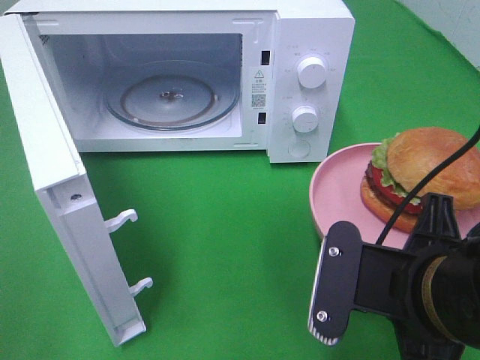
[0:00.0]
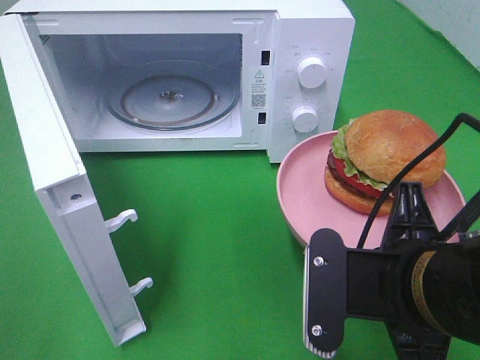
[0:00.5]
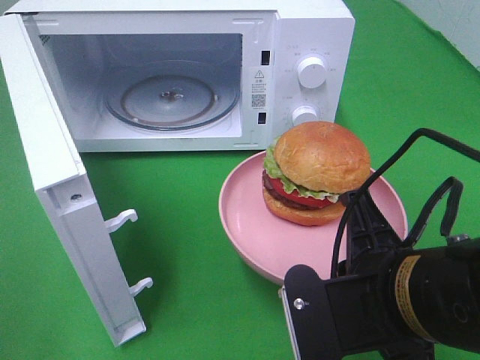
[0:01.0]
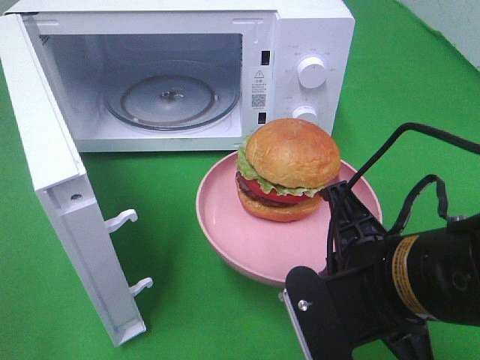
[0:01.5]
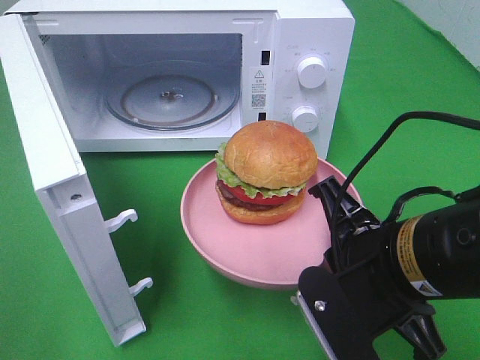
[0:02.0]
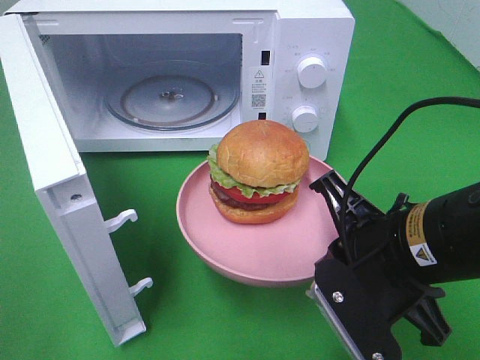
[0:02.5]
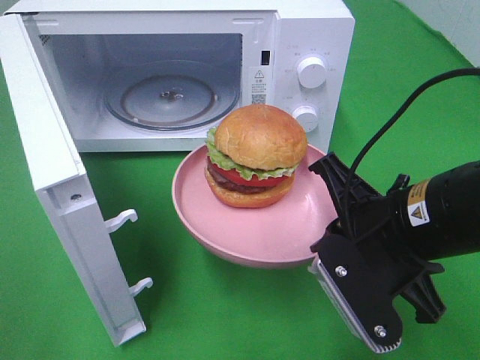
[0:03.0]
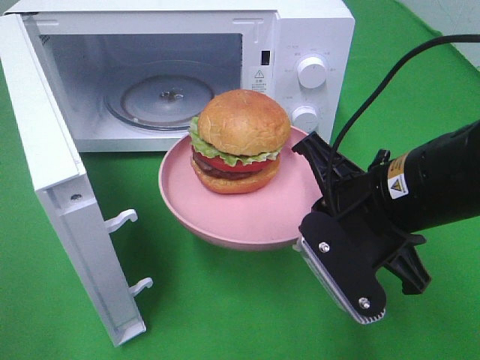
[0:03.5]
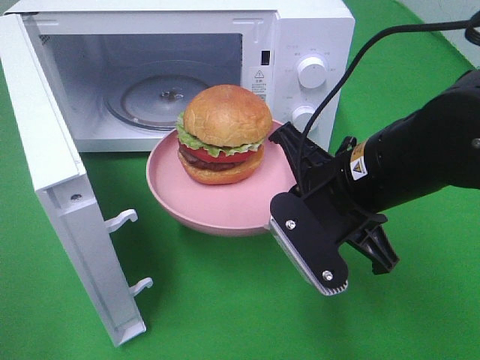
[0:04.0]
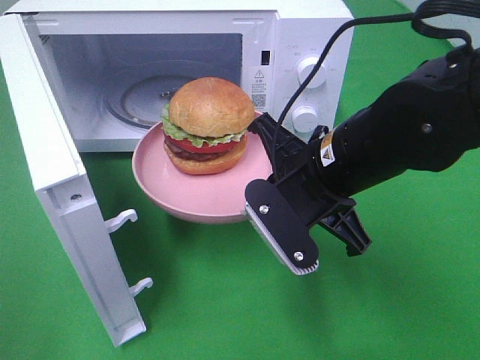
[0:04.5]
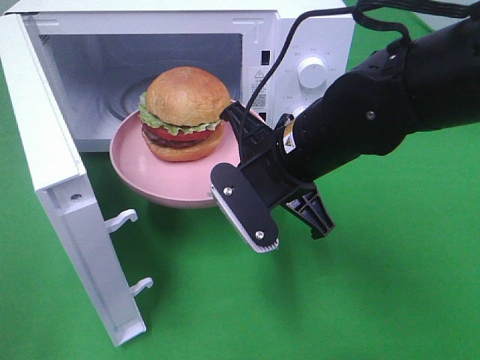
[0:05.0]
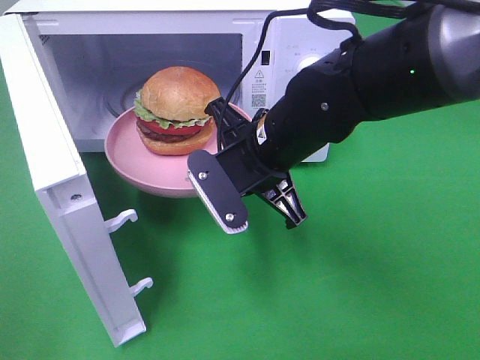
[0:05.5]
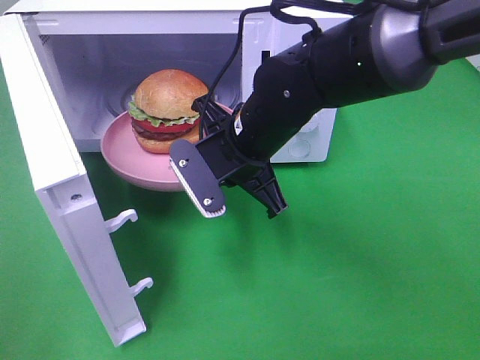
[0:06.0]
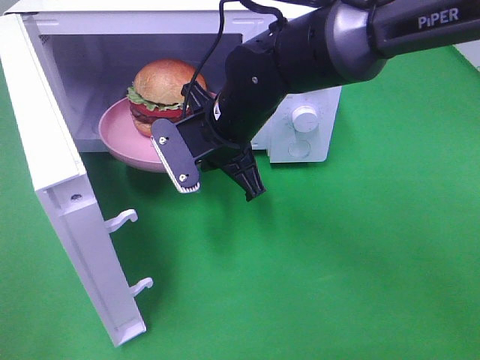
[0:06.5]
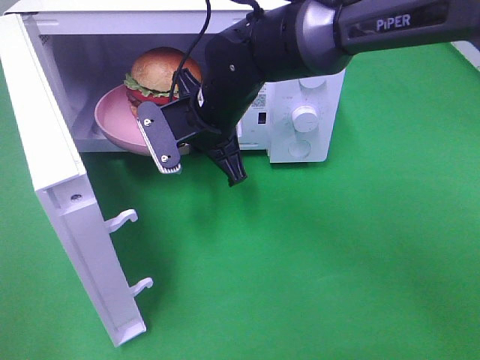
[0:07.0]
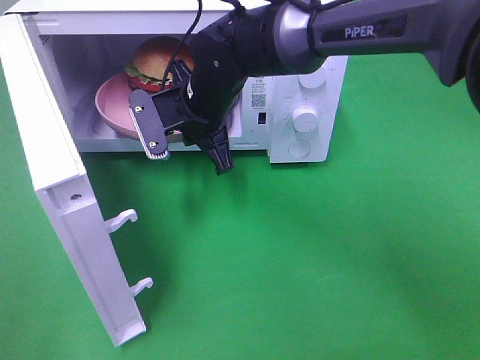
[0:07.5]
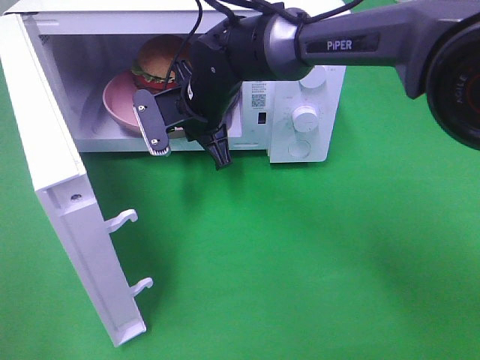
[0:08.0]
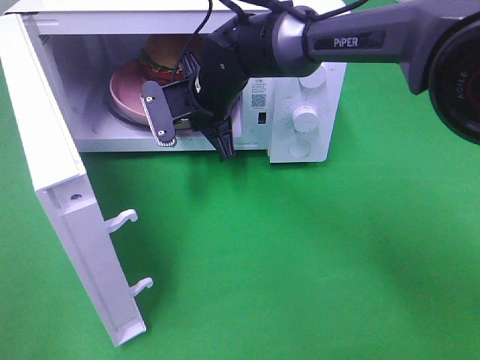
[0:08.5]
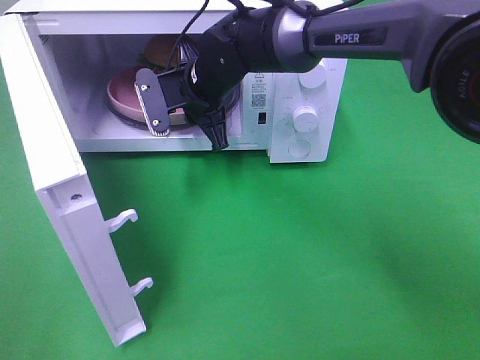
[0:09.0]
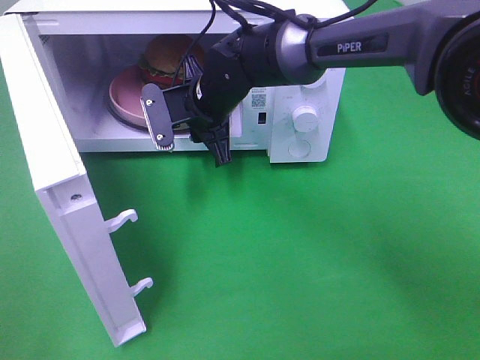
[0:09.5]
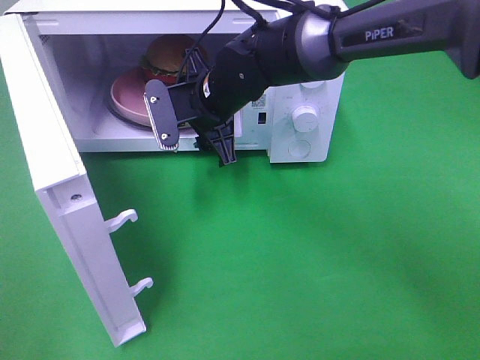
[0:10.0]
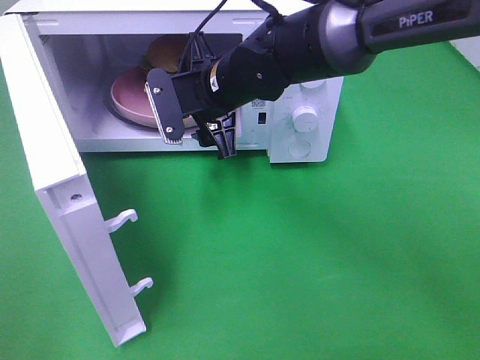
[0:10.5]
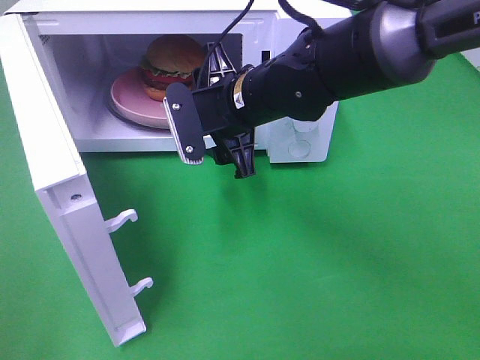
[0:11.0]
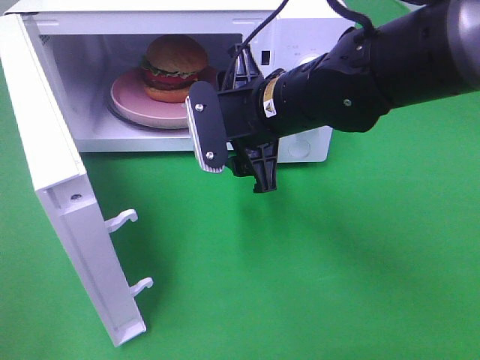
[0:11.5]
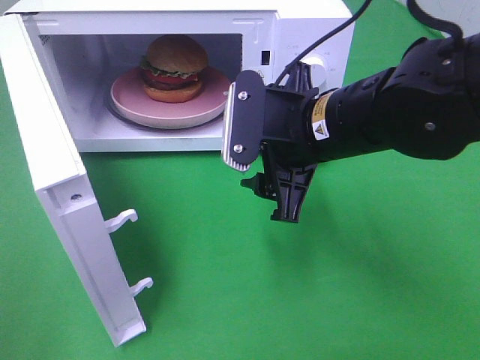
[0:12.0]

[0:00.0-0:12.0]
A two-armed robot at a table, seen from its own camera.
Task of the whole recording: Heat the burger.
Step, 0:00.0 to 0:10.0: Right hand: place the plate in the microwave.
0:02.0 to 0:04.0: The right gripper is displaced forward by roughly 5 cm.
0:04.0 to 0:06.0: The right gripper heads forward and to the left, covering roughly 15 cm.
0:06.0 to 0:08.0: The right gripper shifts approximately 10 cm forward and to the left.
0:08.0 to 0:10.0: The right gripper opens.
0:10.0 to 0:12.0: The right gripper heads backward and to the right, covering some 15 cm.

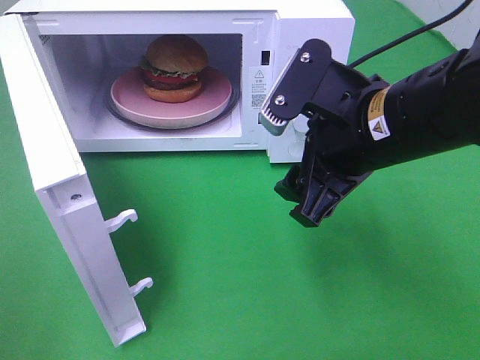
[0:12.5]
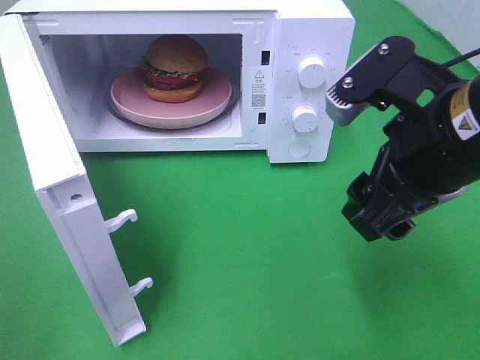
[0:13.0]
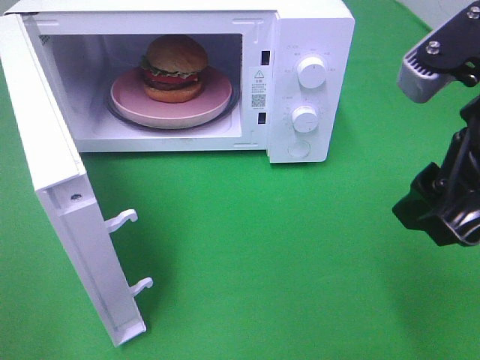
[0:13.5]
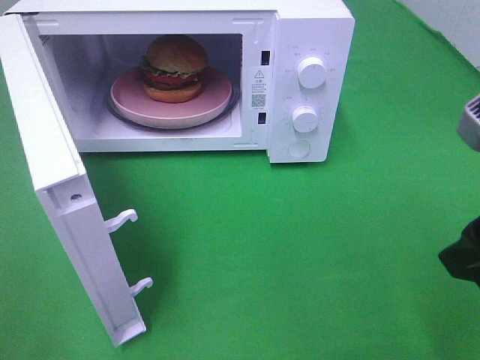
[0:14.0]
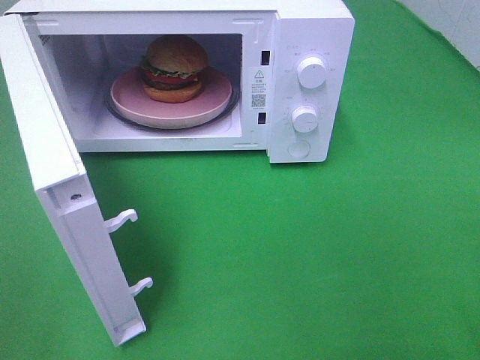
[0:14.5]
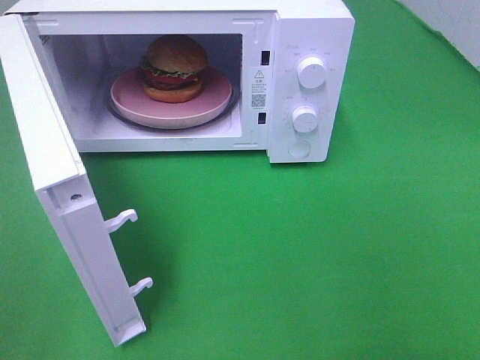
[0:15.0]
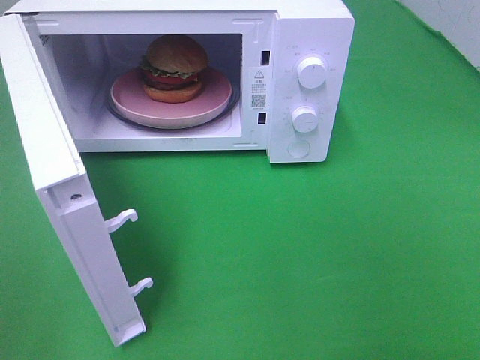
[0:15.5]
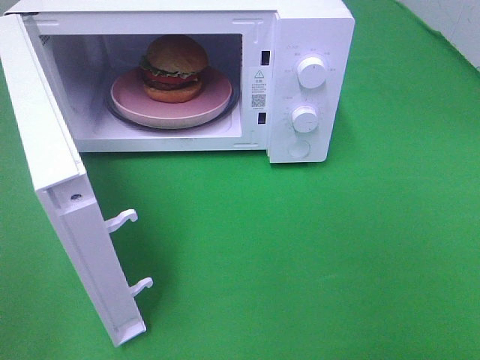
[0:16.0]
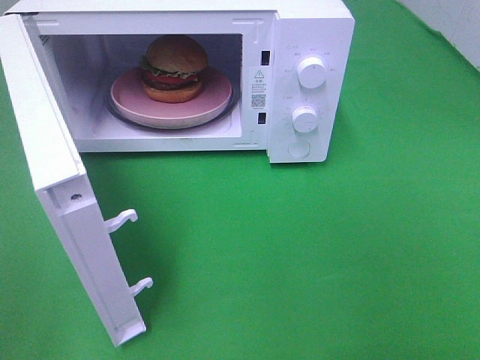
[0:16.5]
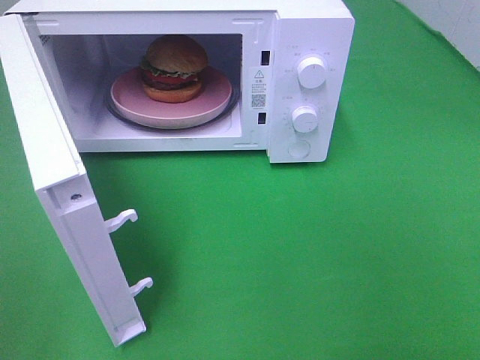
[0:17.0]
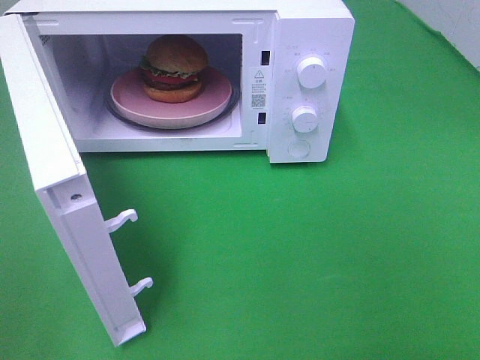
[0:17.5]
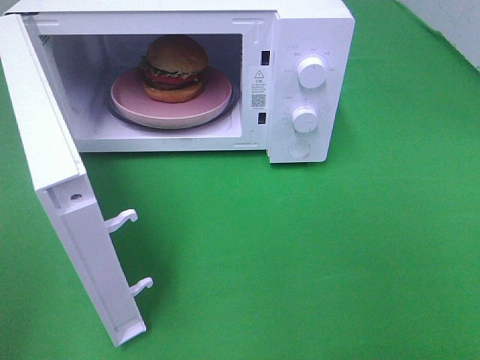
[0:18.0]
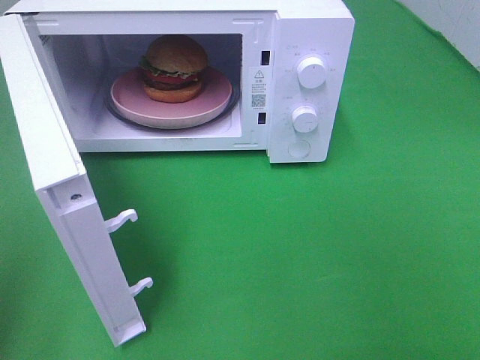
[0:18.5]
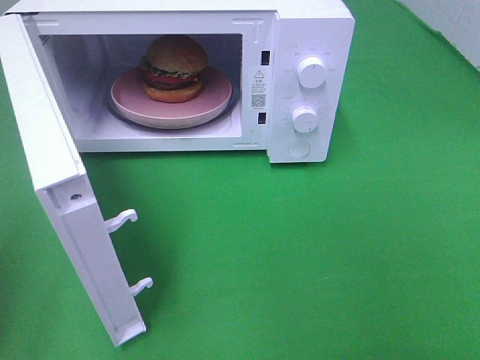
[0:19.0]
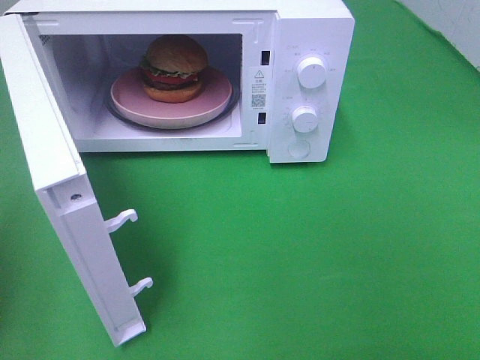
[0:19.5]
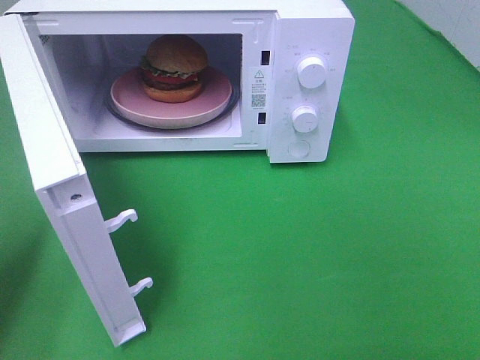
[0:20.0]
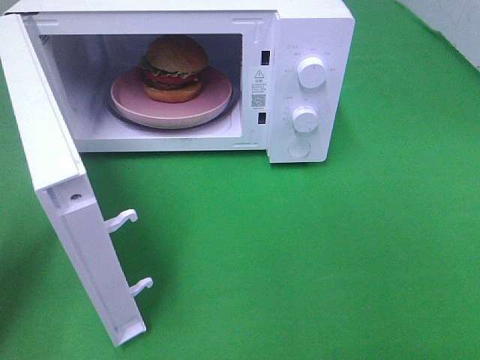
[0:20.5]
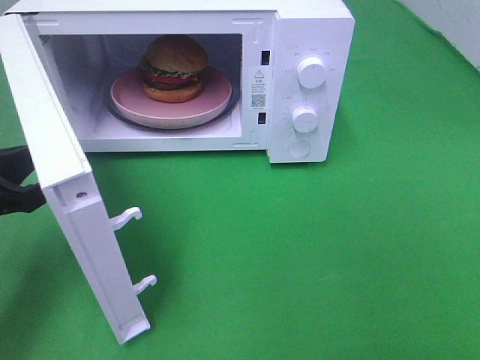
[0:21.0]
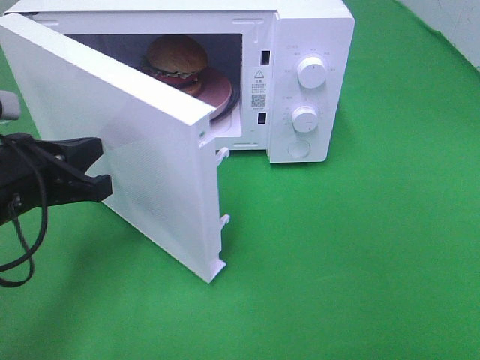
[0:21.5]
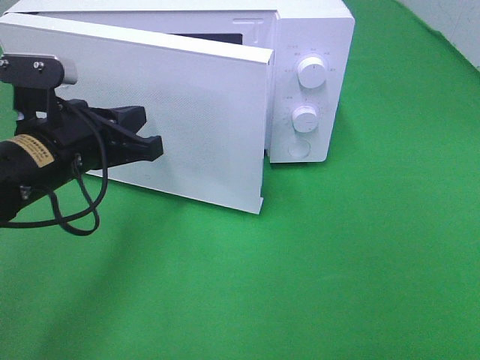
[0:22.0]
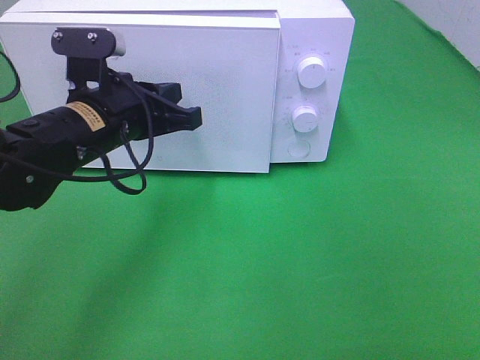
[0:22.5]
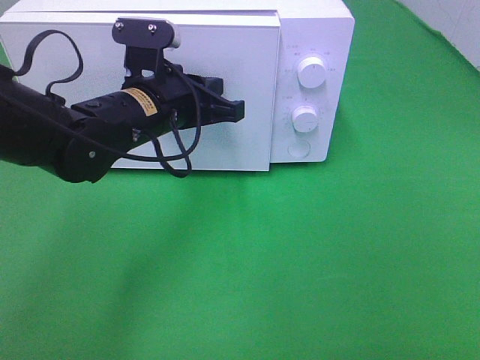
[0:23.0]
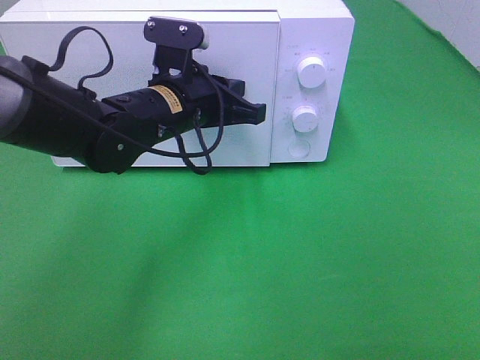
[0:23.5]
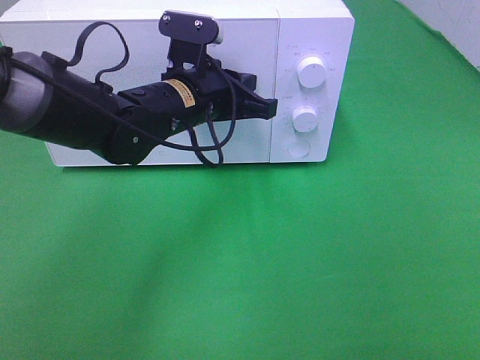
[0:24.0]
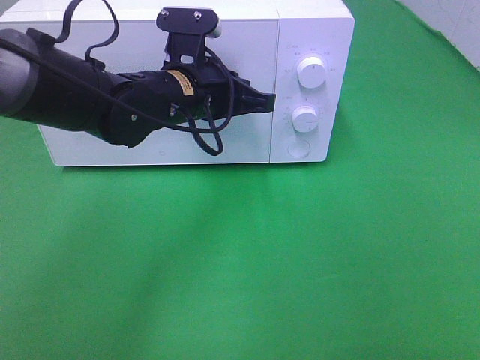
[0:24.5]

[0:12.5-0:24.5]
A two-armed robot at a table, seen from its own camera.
Task of the whole recording: Heat the burger.
0:12.5 to 0:14.5: The right gripper shifts about 20 cm to the right and backward.
0:18.5 to 0:20.5: The left gripper travels forward and downward by some 15 cm.
0:20.5 to 0:22.5: The left gripper shifts approximately 20 cm to the right and forward.
0:22.5 to 0:24.5: The left gripper shifts roughly 10 cm to the right.

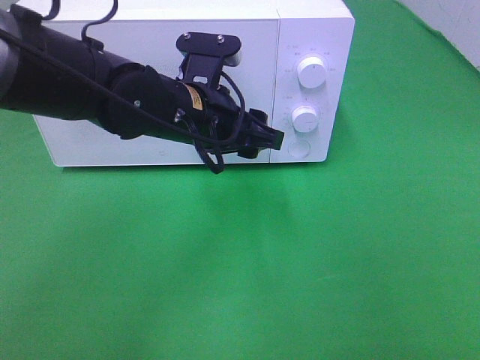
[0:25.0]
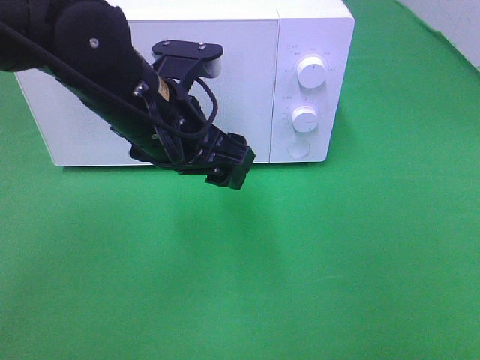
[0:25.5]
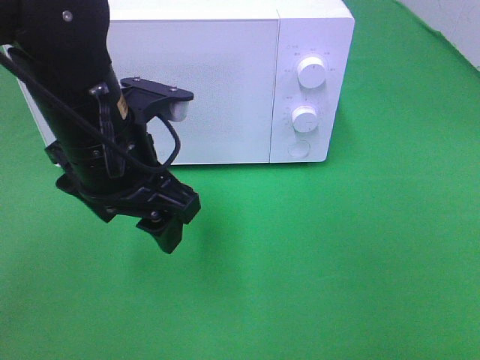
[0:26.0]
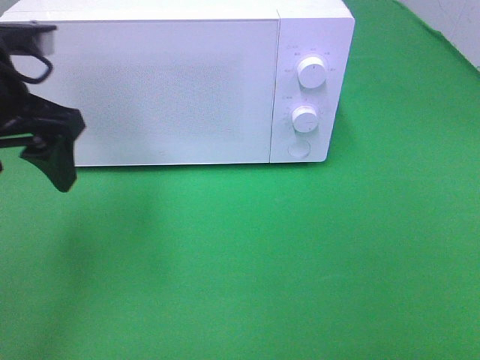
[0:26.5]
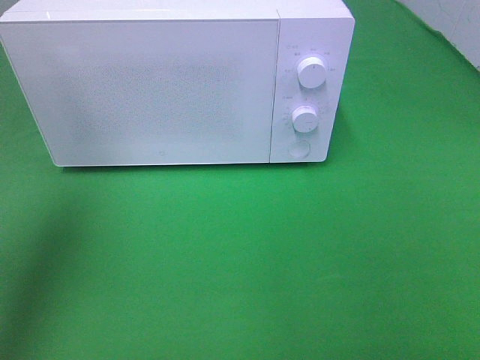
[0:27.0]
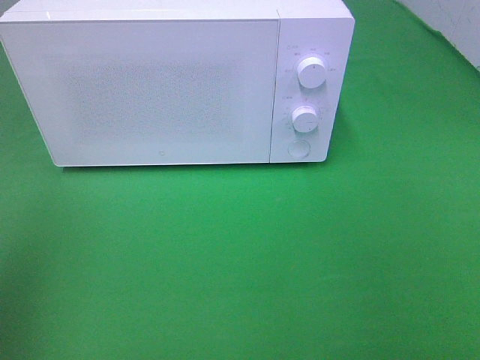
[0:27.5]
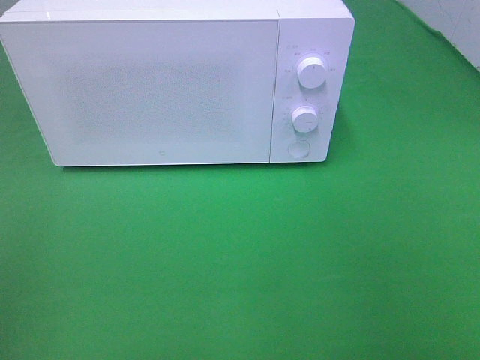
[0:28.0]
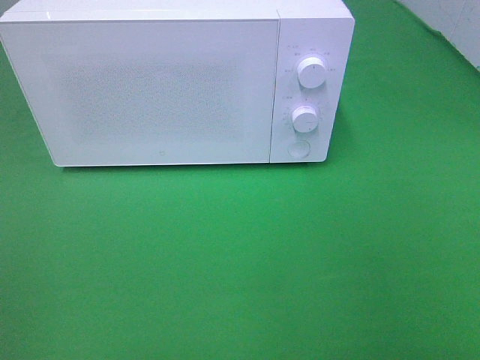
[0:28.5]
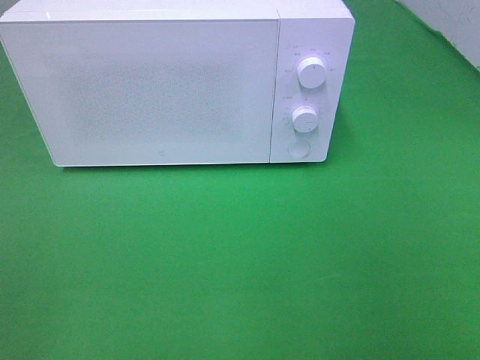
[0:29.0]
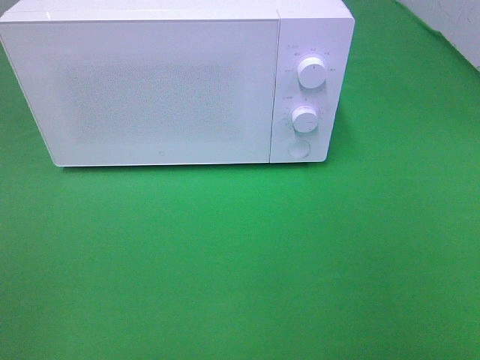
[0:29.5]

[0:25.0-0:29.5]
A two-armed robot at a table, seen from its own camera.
Task of the whole recording: Heat the burger.
0:25.0 to 0:27.0: The left gripper moves to the left and upward, roughly 30 cm.
0:27.0 to 0:29.5: The left gripper goes approximately 25 cm backward.
